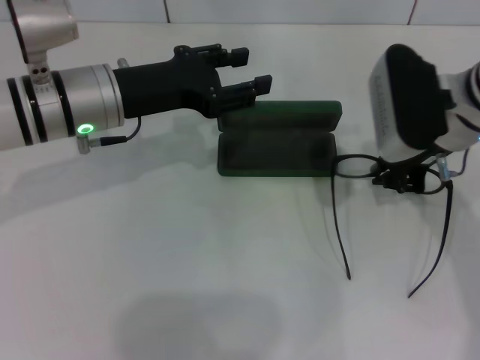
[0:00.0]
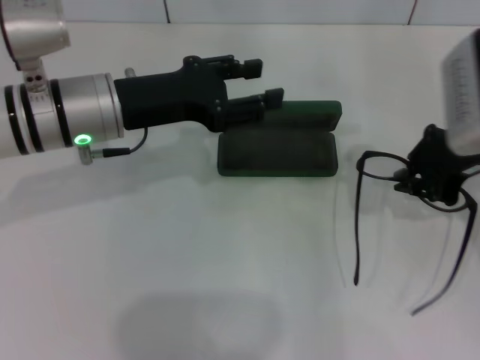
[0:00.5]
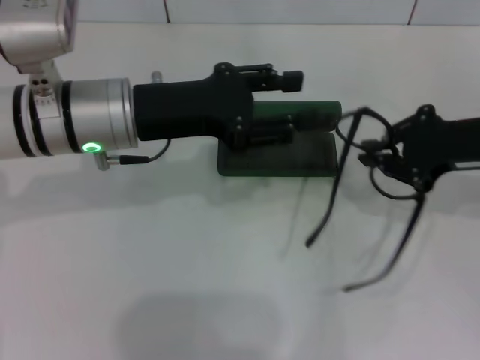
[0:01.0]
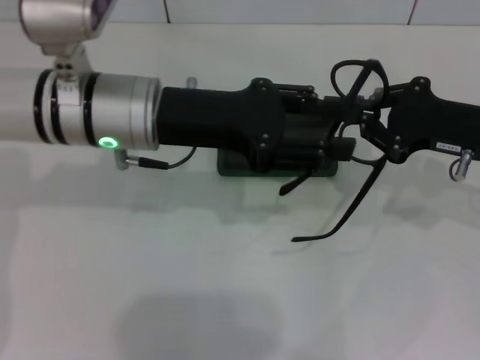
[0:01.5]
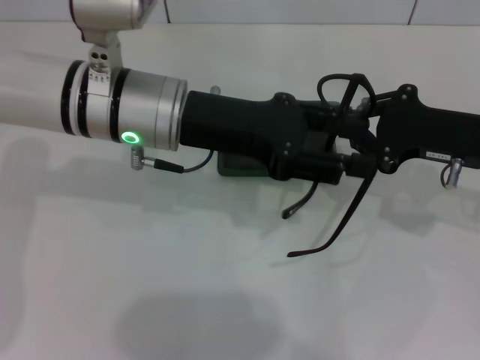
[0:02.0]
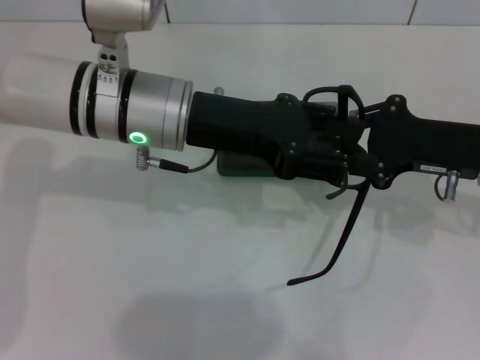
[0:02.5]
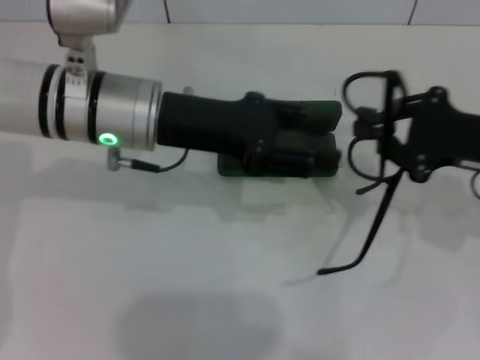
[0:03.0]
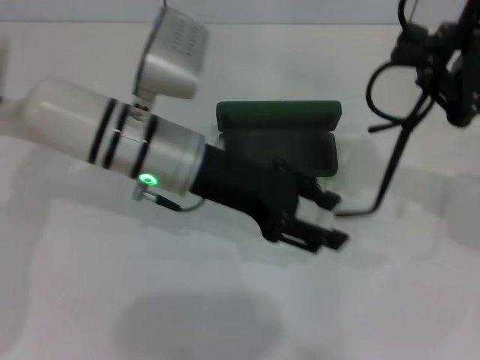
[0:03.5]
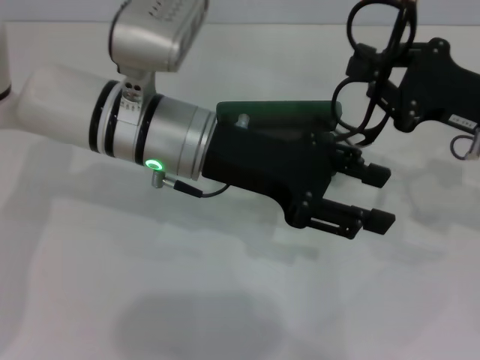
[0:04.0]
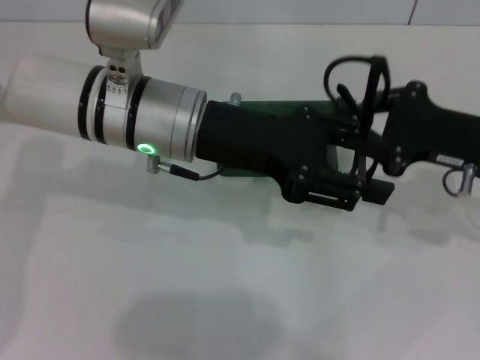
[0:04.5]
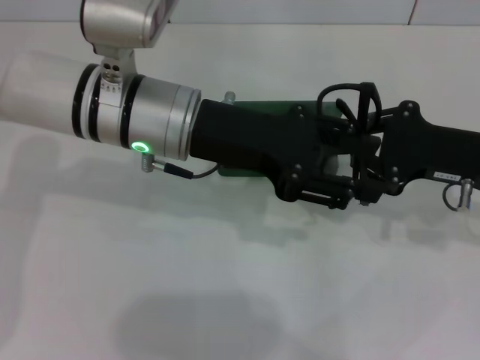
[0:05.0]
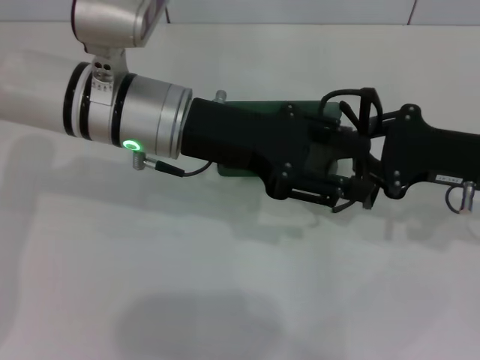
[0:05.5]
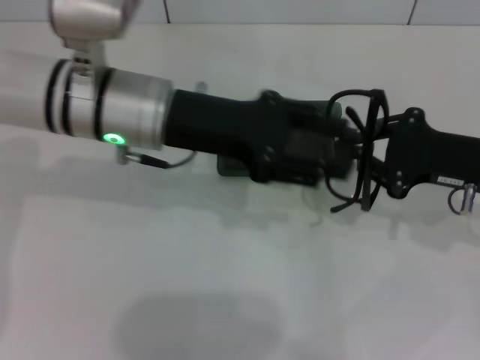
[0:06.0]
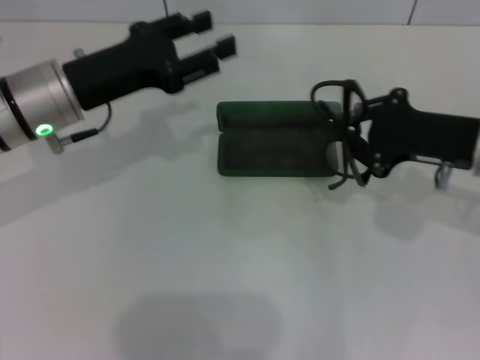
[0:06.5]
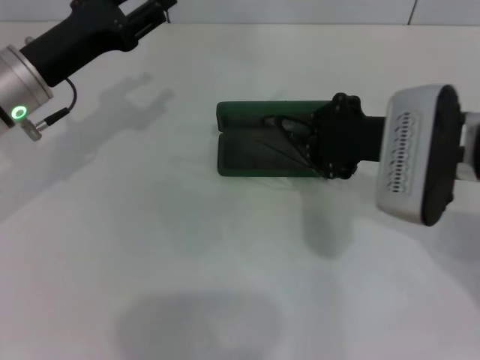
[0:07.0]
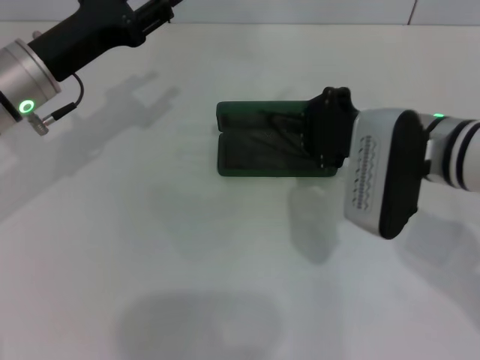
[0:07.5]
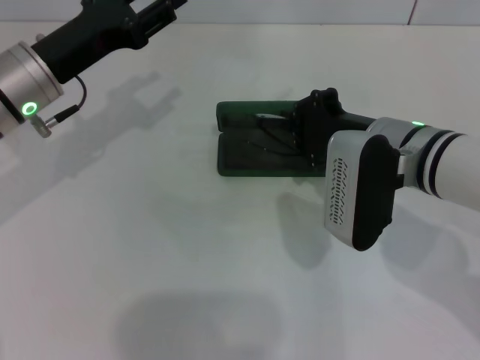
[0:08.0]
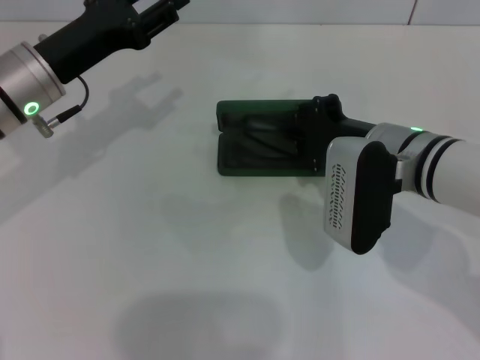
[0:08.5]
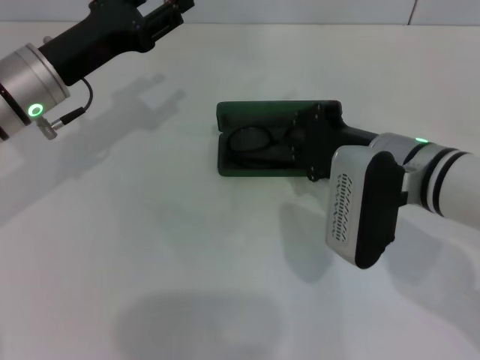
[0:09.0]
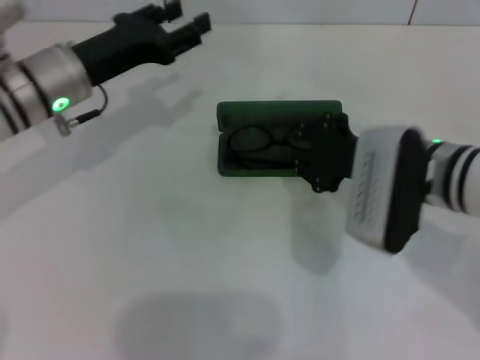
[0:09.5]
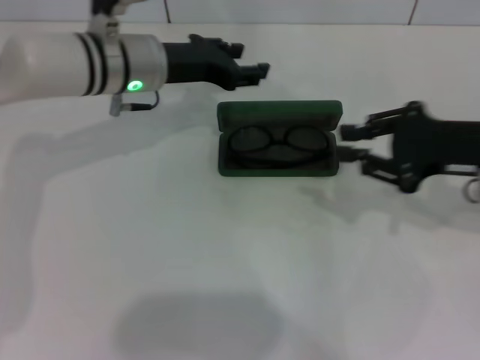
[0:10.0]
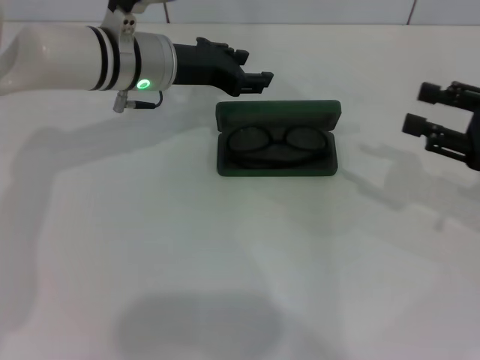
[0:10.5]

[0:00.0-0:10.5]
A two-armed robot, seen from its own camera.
Step, 0:00.5 to 0:05.0: Lift the glasses with your right hand.
Step, 0:05.5 to 0:09.0: Put the glasses into the case with your right hand.
0:00.0 to 0:02.0: The two grippers go some 5 cm to the right.
0:04.0 to 0:06.5: The left gripper heads to the left, covering some 10 cm.
0:06.5 to 0:08.5: The right gripper goes roughly 10 cm to the left.
0:08.5 to 0:10.5: The left gripper travels to the right and forward by about 10 cm, while the right gripper travels to the right by approximately 20 cm, and opens.

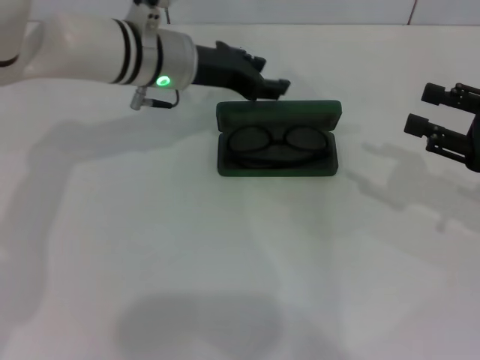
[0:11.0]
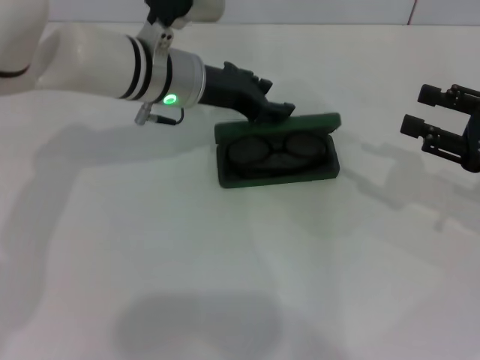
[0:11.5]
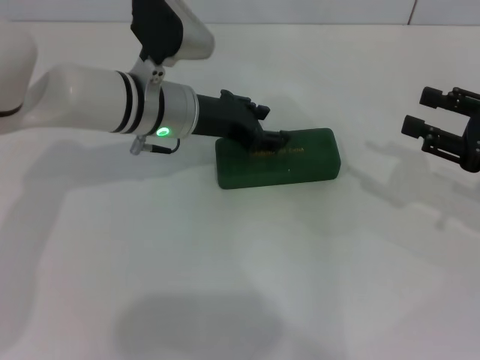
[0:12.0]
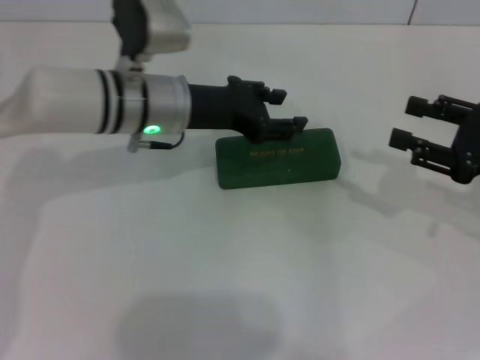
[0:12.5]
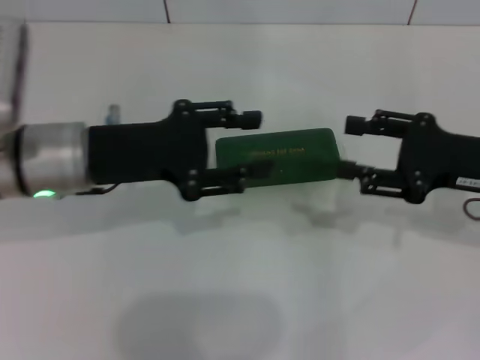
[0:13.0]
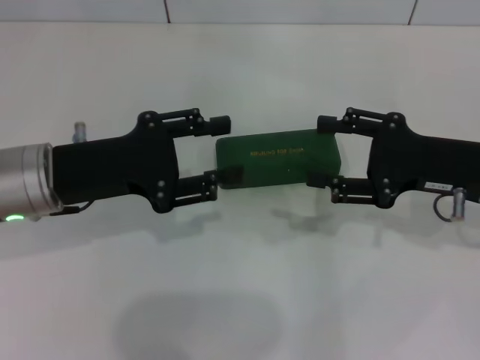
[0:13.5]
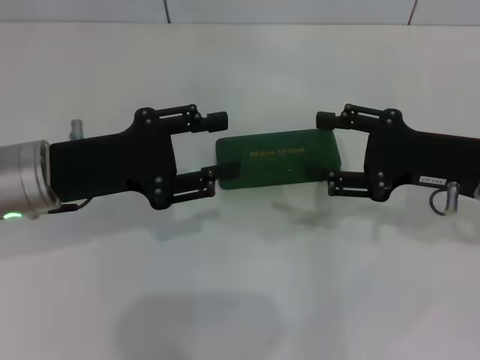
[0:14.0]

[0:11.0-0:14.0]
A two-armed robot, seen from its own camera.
0:11.0 to 0:12.5: There are only small adjustments of the grippers.
0:12.5 to 0:14.0: The left gripper goes some 15 cm backward and to the left, while the right gripper heads to the left, covering some 5 cm.

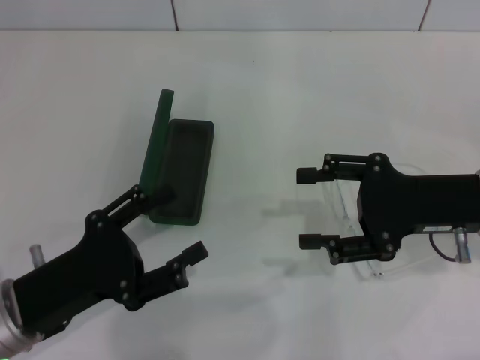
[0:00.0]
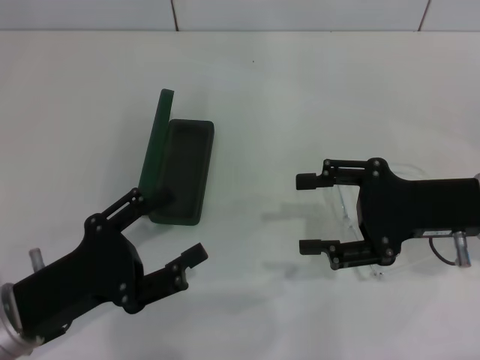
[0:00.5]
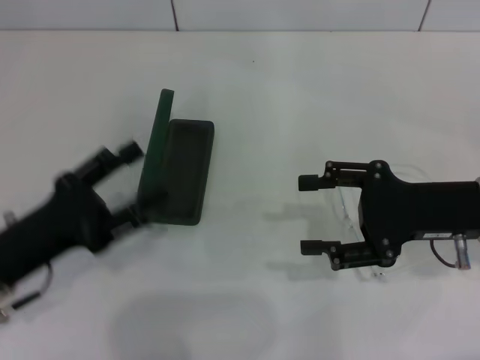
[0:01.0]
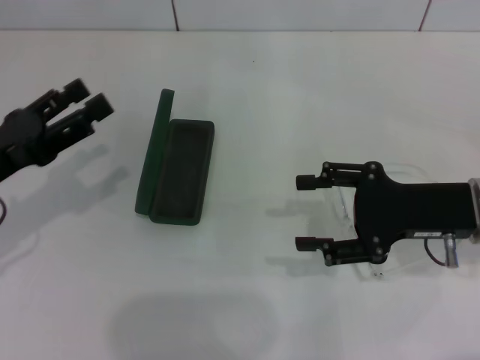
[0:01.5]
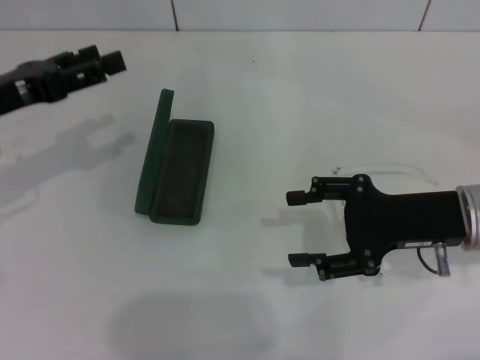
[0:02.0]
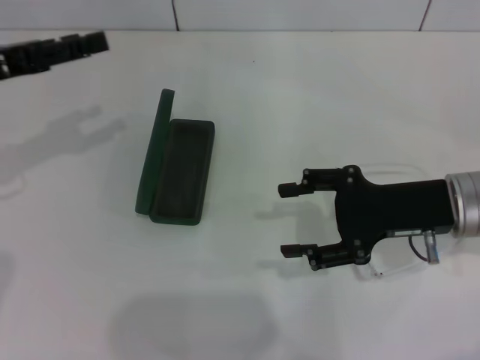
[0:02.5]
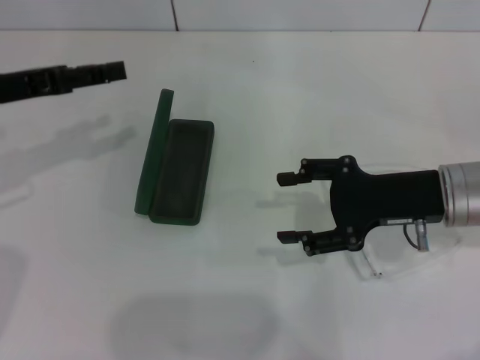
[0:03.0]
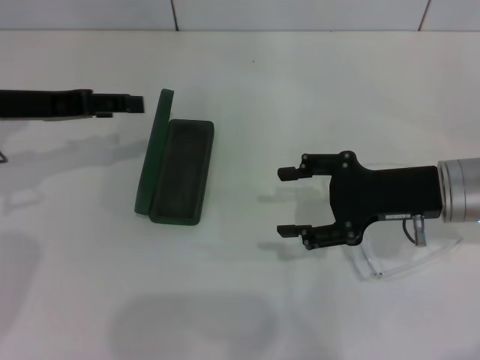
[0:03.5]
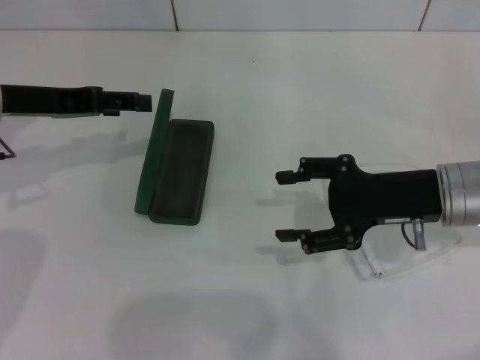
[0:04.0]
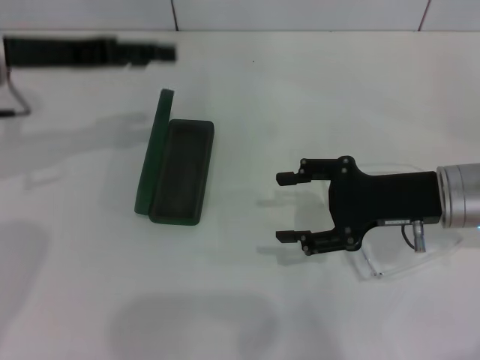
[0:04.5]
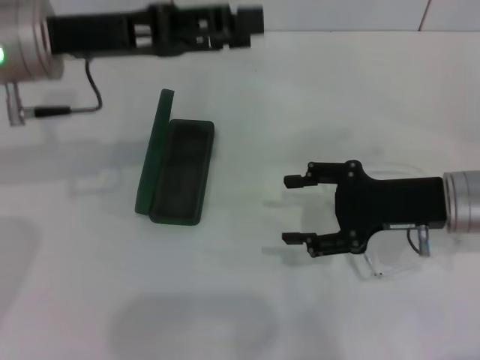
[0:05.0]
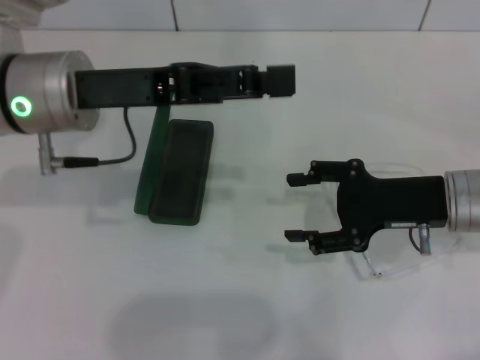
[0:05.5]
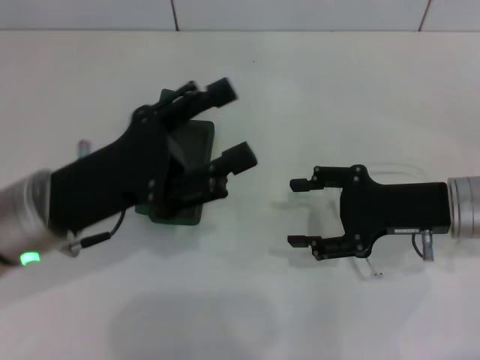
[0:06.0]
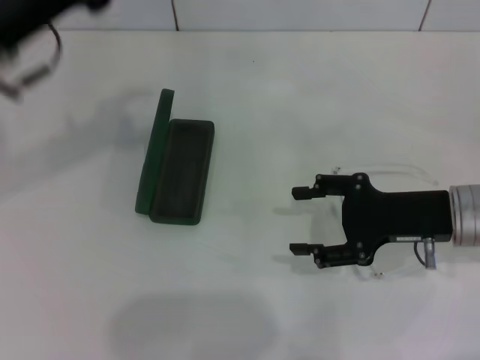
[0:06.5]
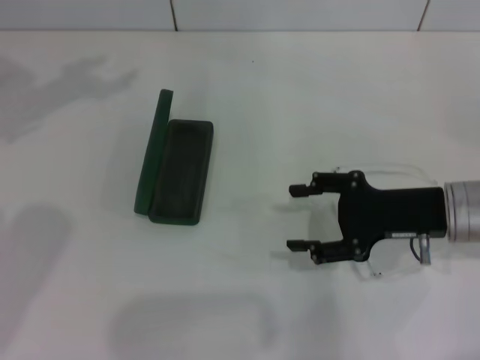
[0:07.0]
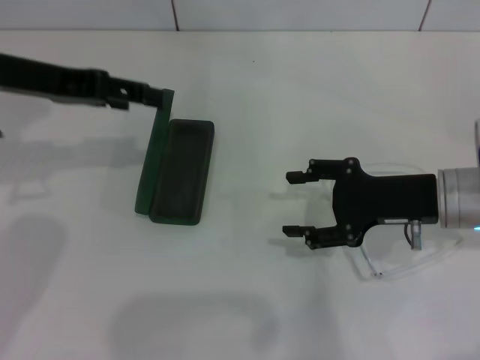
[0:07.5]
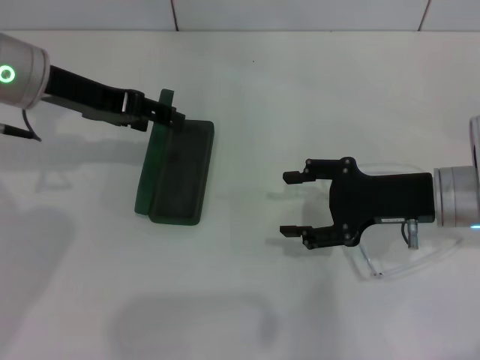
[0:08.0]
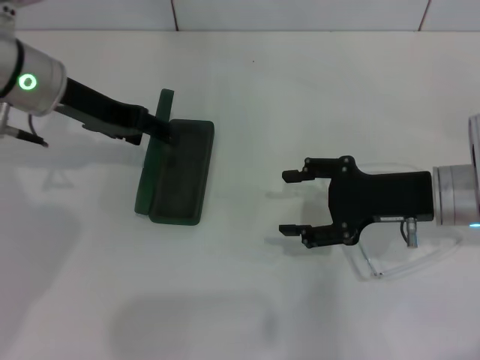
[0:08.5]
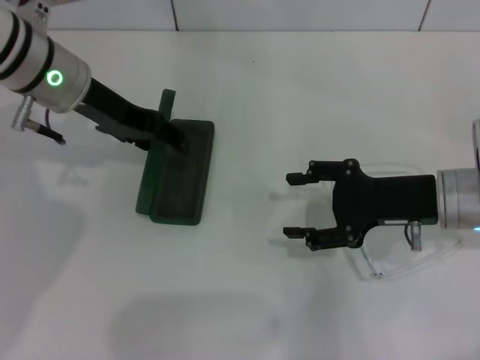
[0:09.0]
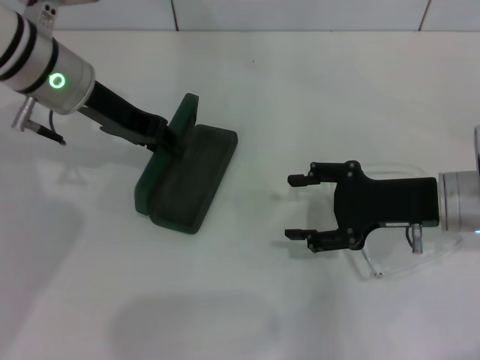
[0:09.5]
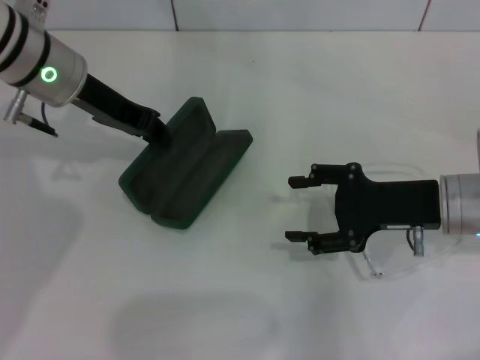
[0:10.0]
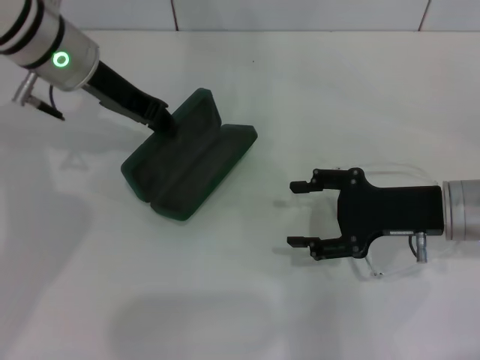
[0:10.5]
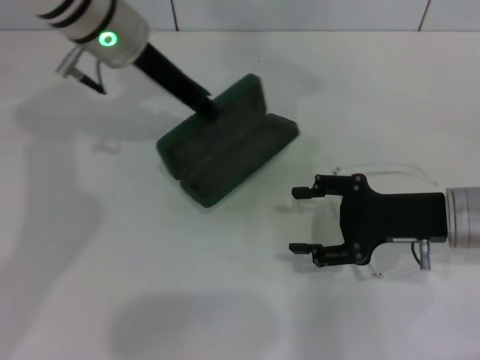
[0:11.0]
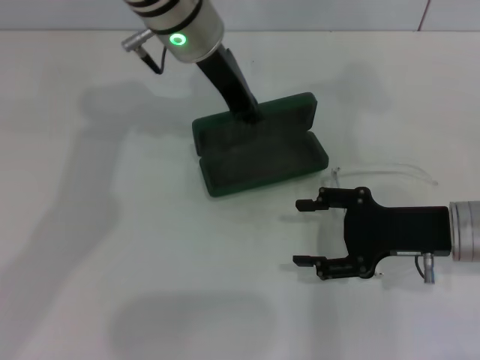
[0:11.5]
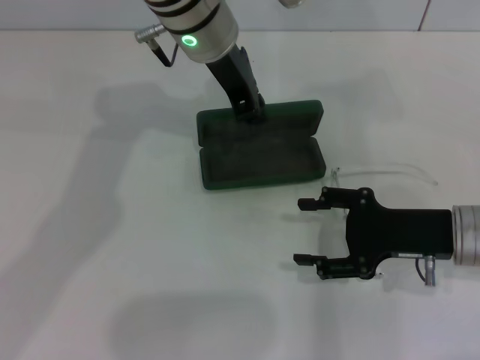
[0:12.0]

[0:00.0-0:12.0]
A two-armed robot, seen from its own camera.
Step, 0:00.0 to 0:10.0: Grab the glasses case with your left hand.
0:00.0 to 0:02.0: The left gripper is displaced forward, upward and to the left by about 15 cm.
0:02.0 to 0:04.0: The left gripper shifts by approximately 5 cm.
0:04.0 to 0:06.0: The left gripper moves backward, to the right and downward, roughly 15 cm.
0:06.0 to 0:08.0: The left gripper goes roughly 15 cm forward and upward.
0:08.0 to 0:10.0: The left gripper closes up.
0:10.0 to 0:12.0: The left gripper goes roughly 15 cm to the right.
